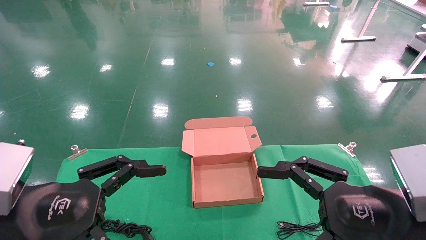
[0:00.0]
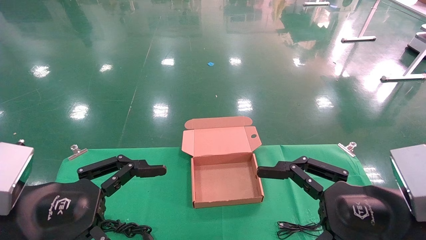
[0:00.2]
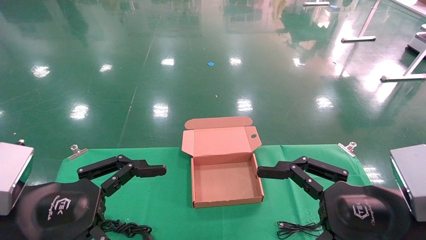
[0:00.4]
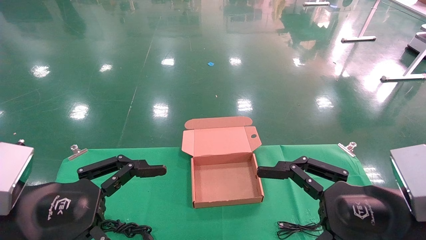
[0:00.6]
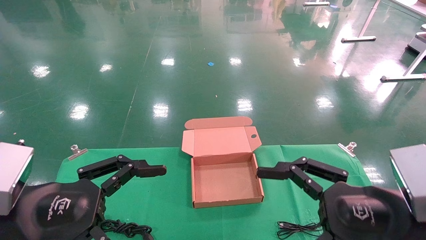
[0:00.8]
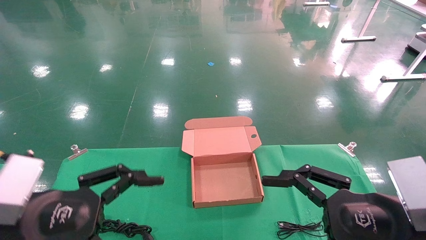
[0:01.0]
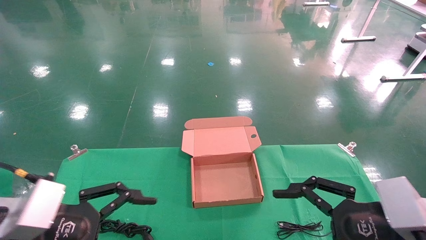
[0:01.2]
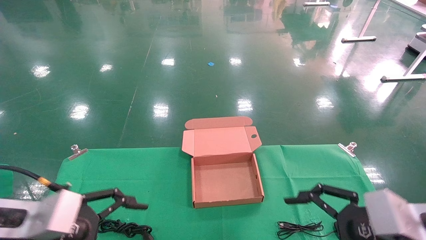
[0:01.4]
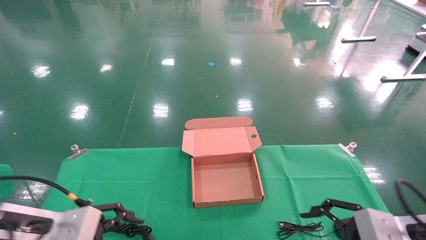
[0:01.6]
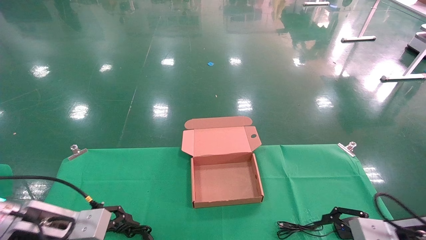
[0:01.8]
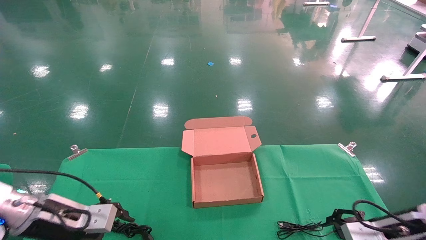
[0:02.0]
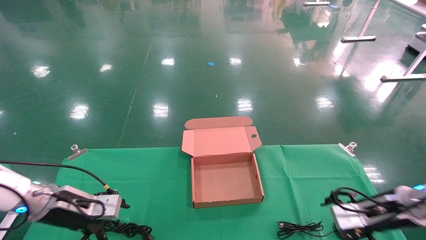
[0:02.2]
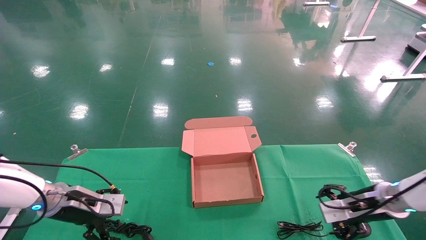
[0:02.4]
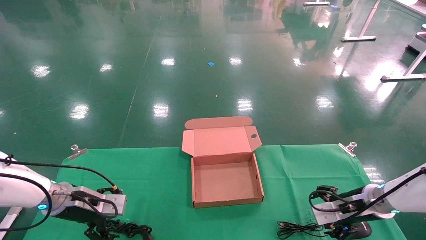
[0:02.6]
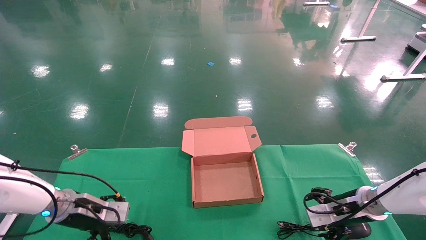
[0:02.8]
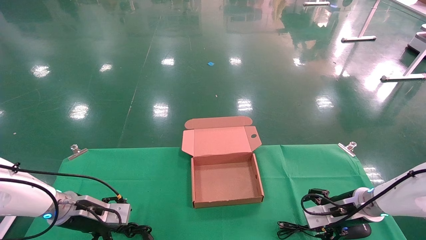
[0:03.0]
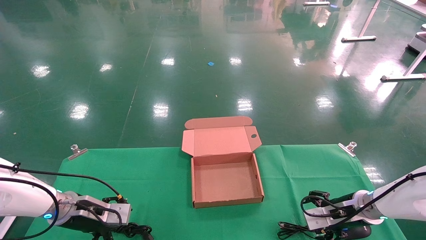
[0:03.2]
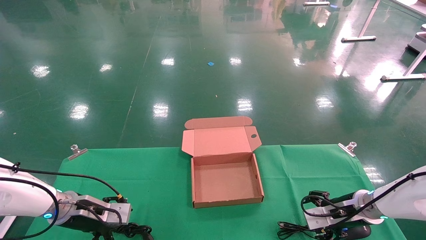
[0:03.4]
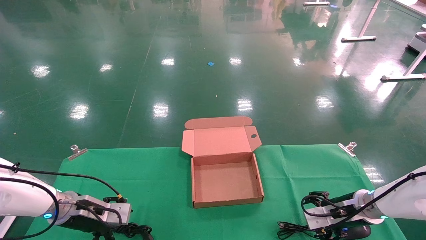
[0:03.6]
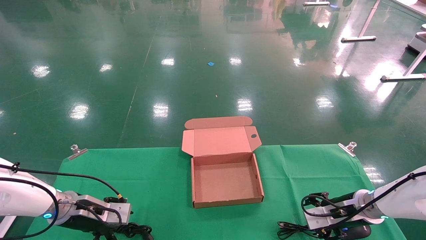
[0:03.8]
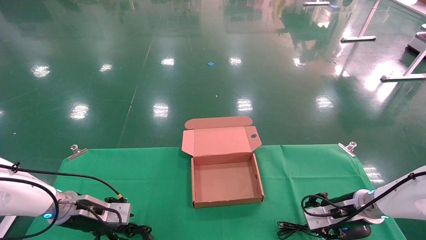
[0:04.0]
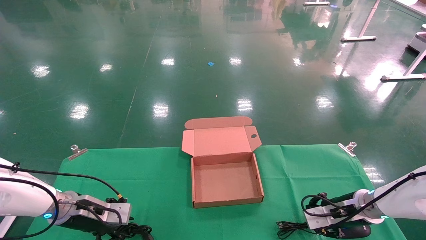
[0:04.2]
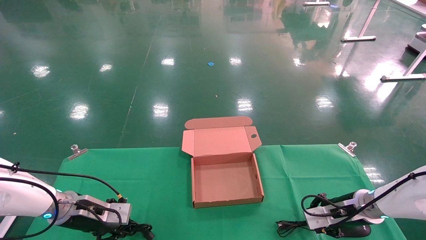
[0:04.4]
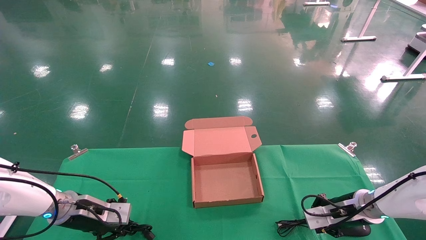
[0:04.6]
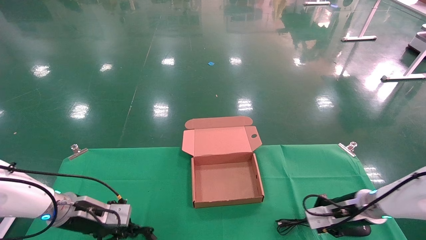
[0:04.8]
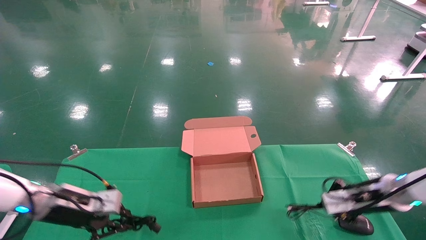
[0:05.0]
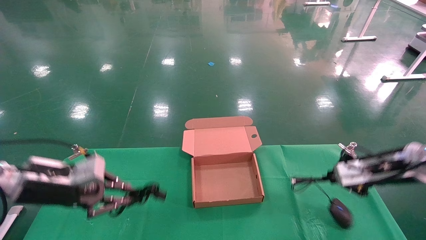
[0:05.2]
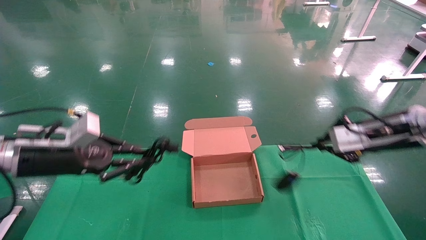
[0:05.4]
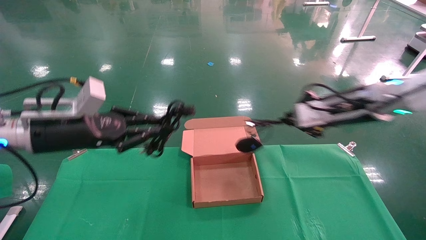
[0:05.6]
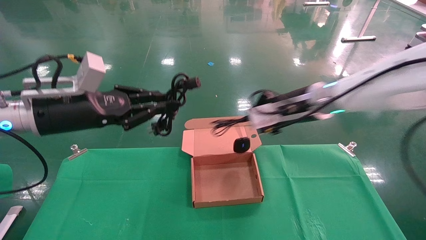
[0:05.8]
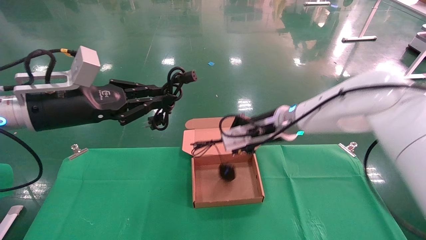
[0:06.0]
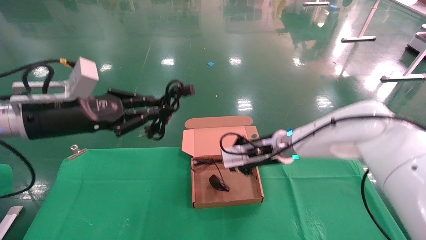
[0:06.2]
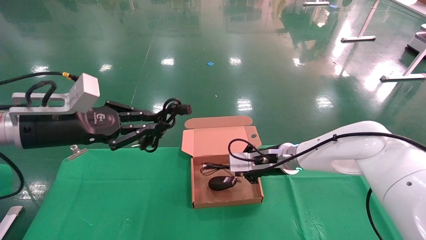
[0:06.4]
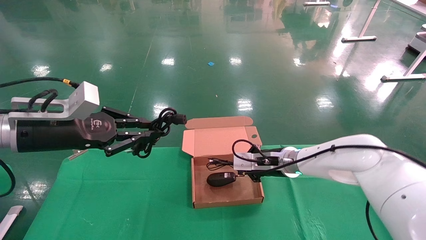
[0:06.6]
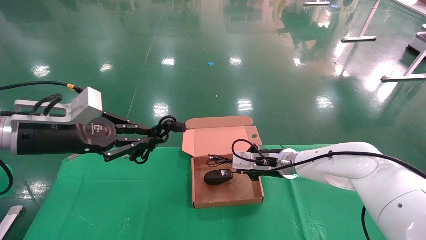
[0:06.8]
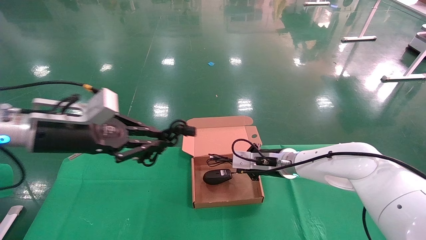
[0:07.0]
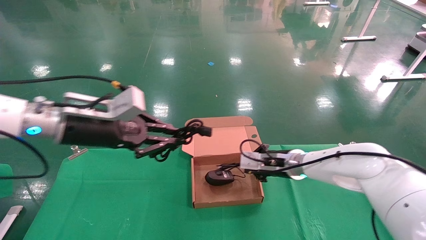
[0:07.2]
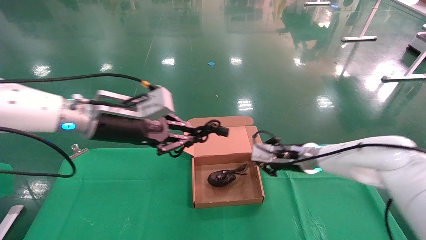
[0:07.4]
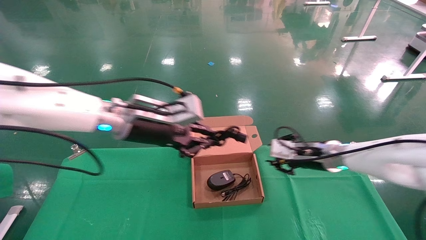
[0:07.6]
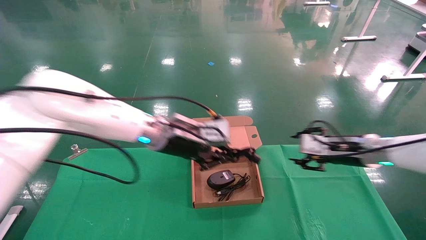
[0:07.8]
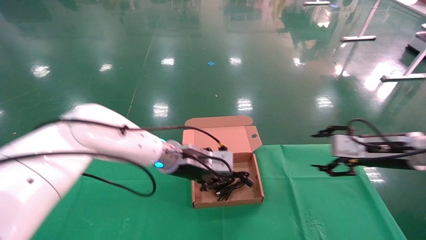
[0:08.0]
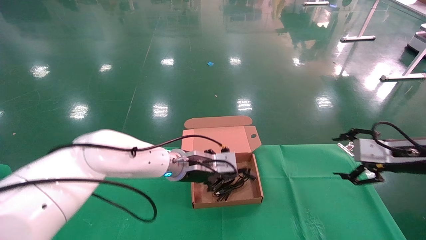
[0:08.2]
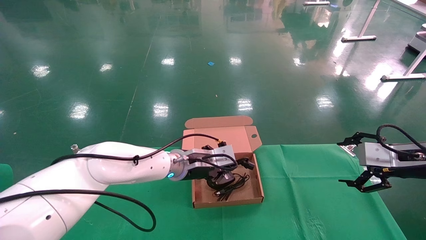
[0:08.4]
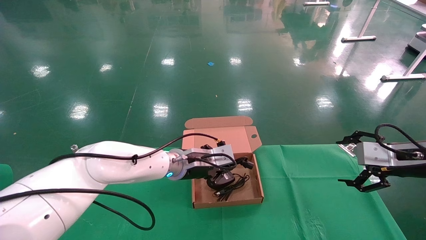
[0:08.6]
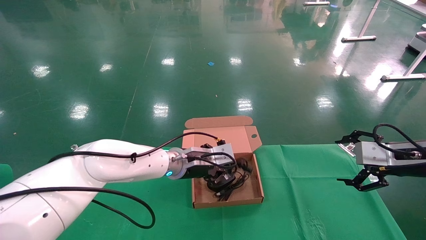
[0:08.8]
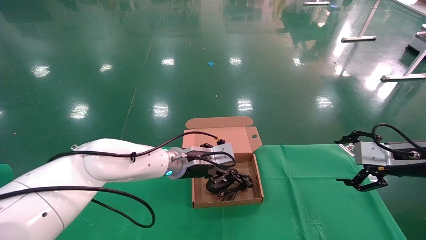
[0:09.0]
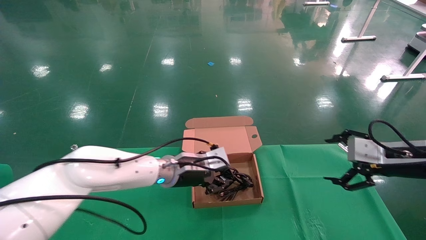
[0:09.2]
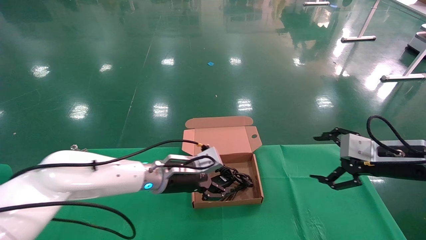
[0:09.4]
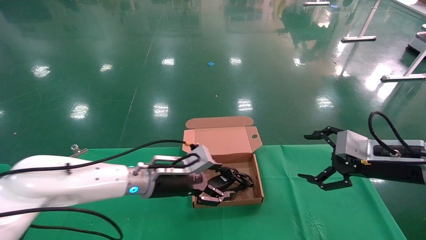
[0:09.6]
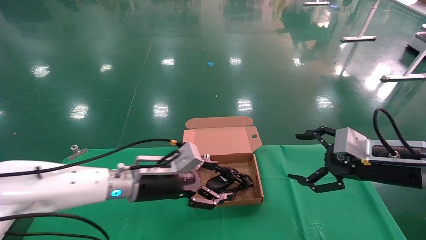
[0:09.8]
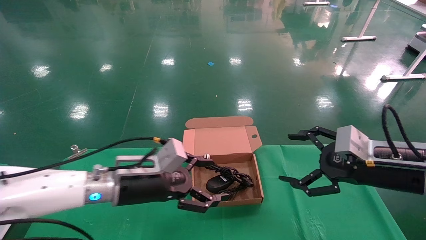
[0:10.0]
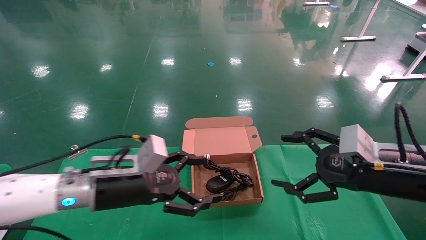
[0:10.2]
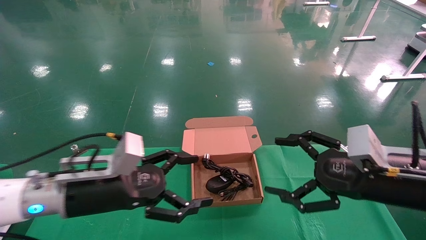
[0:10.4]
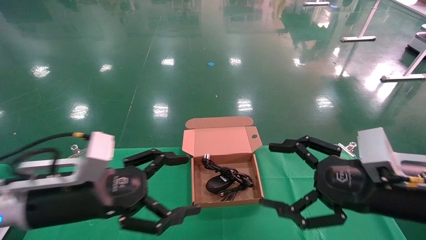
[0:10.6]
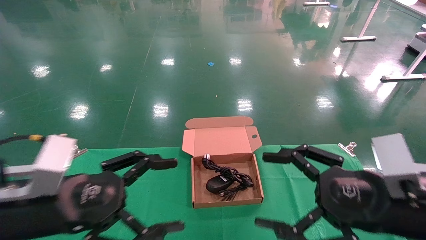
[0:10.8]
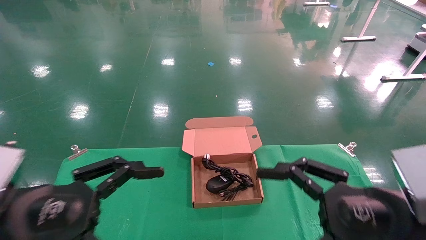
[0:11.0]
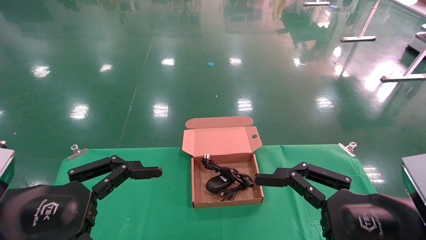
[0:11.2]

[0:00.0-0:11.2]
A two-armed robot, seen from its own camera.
Step, 0:01.0 to 0:04.8: Grab and lift both the mouse and power cord from the accessory packaging area at the same time.
Step, 0:05.0 to 0:08.6: Place the mouse and power cord into the box.
0:00.0 to 0:01.6: The right gripper travels to the right, forward and downward by approximately 10 cm. The left gripper goes roughly 10 cm forward and downward.
0:01.6 to 0:03.2: The two grippers go approximately 20 cm forward and downward.
0:03.2 to 0:04.8: The left gripper closes; the right gripper closes its fingers.
0:04.8 to 0:06.4: The left gripper travels upward by about 20 cm. Meanwhile the right gripper heads to the left and upward, covering roughly 20 cm.
0:06.4 to 0:08.0: The left gripper goes approximately 25 cm to the right and forward, while the right gripper shifts roughly 20 cm to the right, and opens its fingers.
0:08.0 to 0:09.6: The left gripper moves downward, roughly 5 cm, and opens. The right gripper heads backward, covering roughly 5 cm, and opens.
0:09.6 to 0:11.2: Both grippers travel together backward and to the left, about 25 cm.

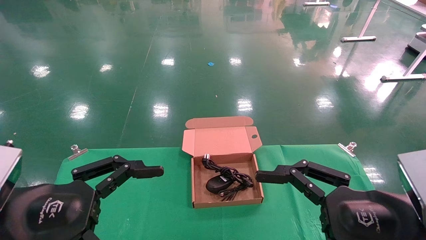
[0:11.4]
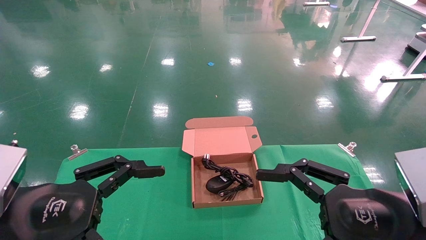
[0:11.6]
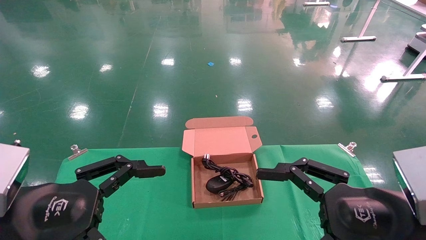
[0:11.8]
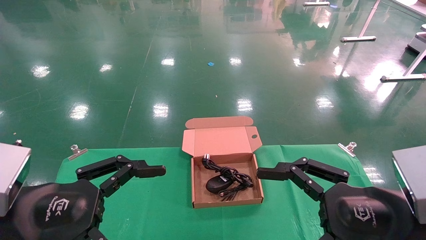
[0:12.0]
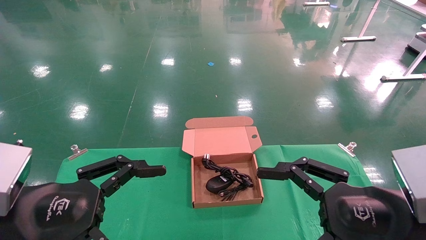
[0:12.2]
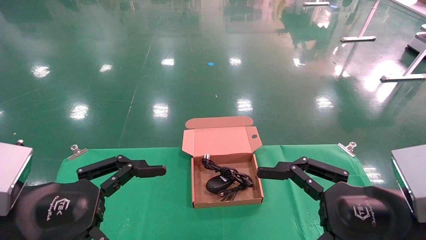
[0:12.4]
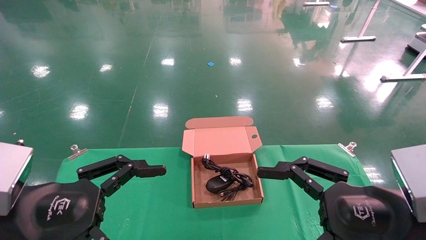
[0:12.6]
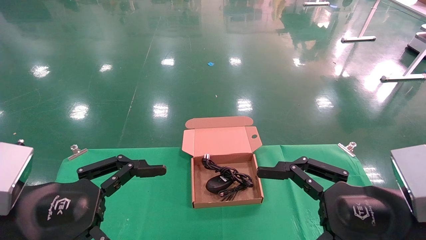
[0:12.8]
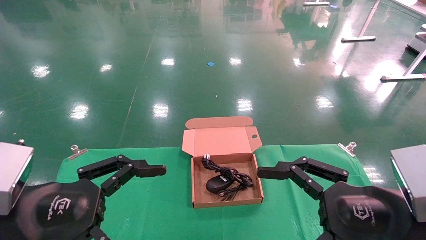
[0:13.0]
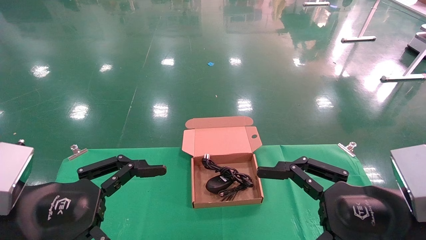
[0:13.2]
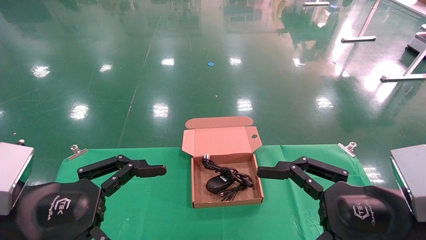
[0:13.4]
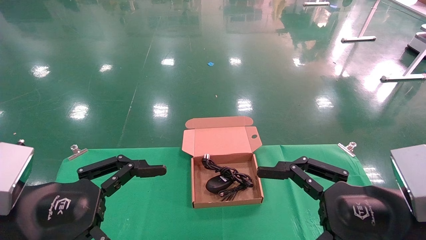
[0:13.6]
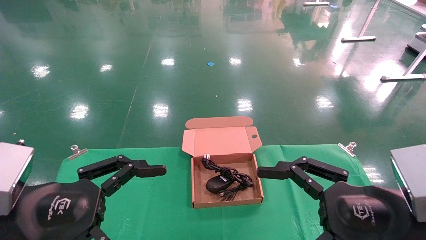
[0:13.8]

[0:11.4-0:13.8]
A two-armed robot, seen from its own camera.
0:11.4 to 0:13.8: The two grippers keep their place.
